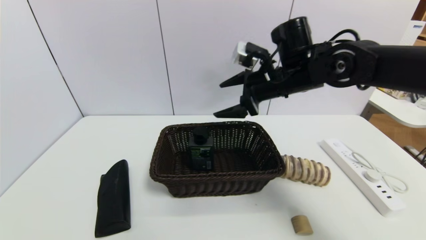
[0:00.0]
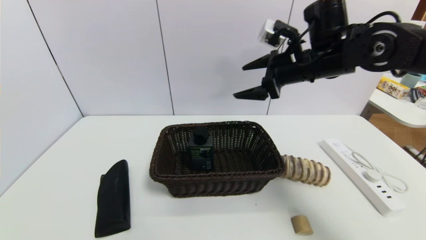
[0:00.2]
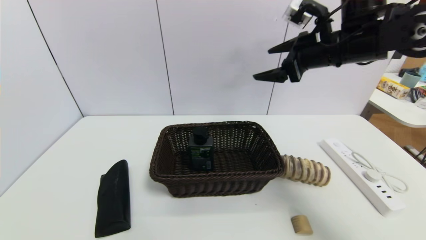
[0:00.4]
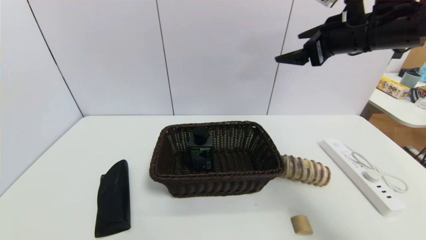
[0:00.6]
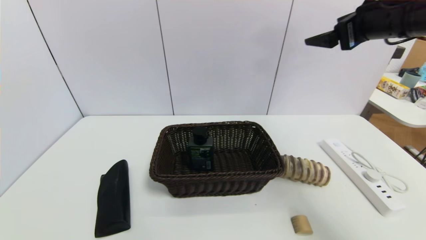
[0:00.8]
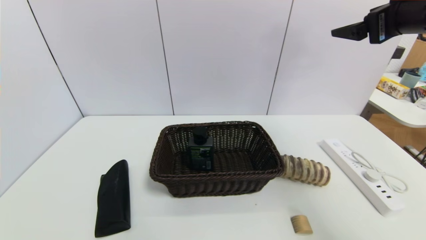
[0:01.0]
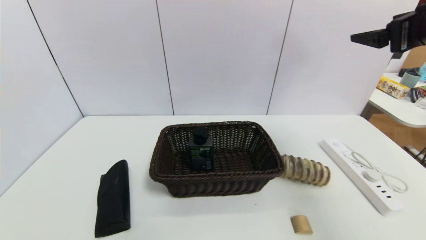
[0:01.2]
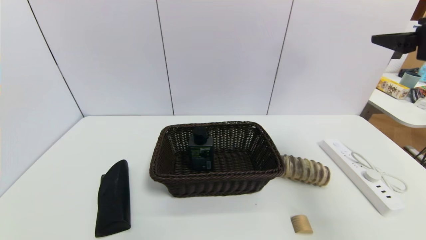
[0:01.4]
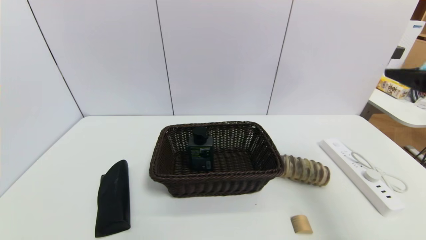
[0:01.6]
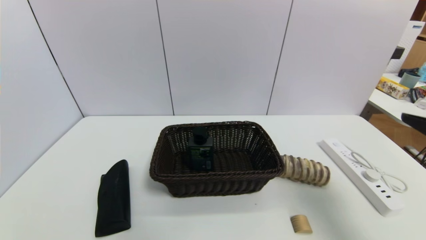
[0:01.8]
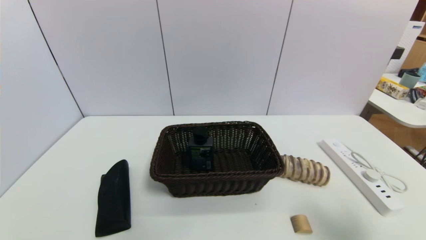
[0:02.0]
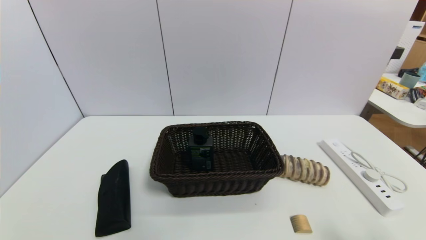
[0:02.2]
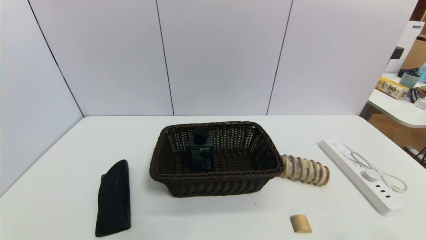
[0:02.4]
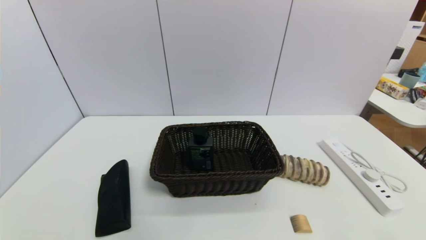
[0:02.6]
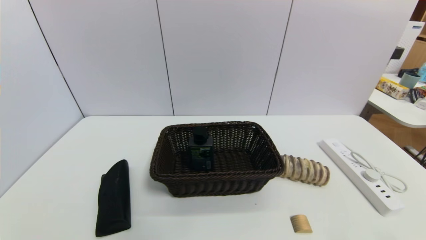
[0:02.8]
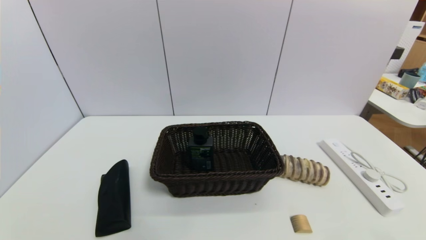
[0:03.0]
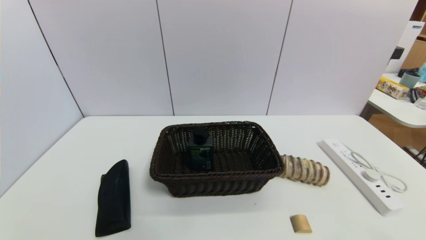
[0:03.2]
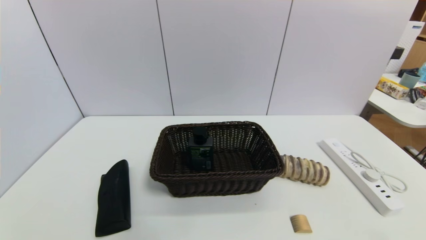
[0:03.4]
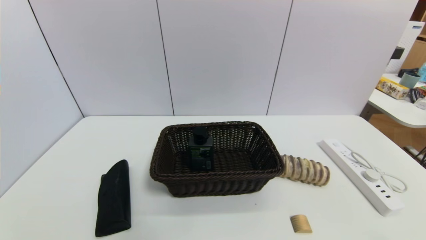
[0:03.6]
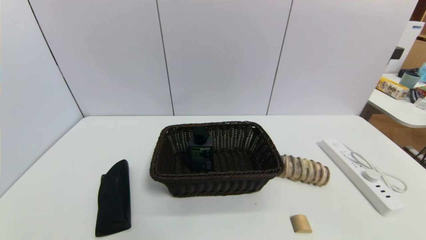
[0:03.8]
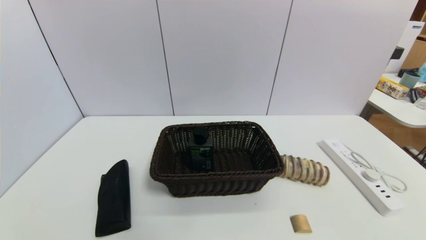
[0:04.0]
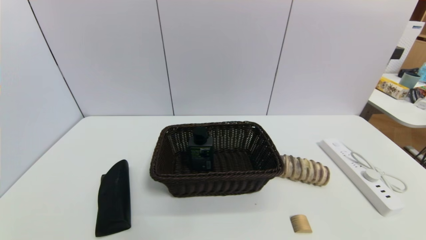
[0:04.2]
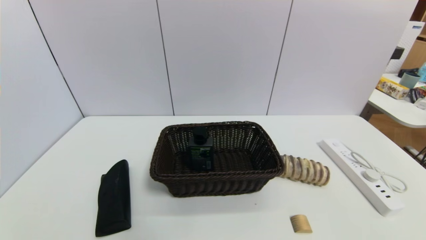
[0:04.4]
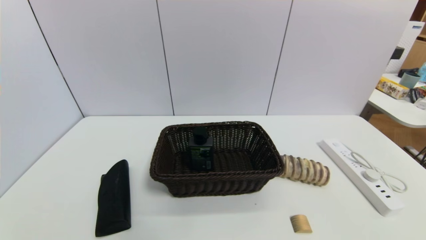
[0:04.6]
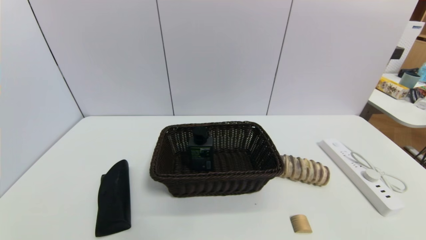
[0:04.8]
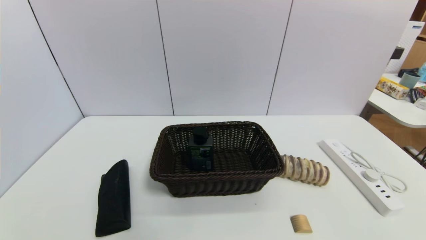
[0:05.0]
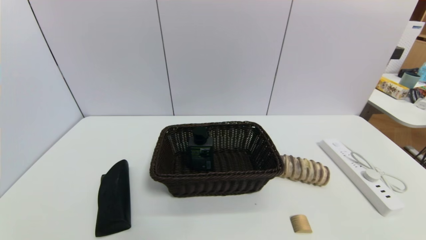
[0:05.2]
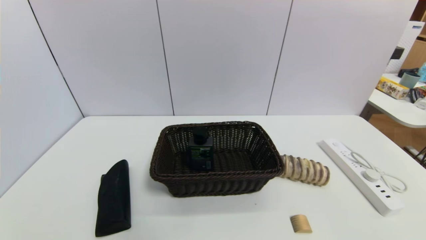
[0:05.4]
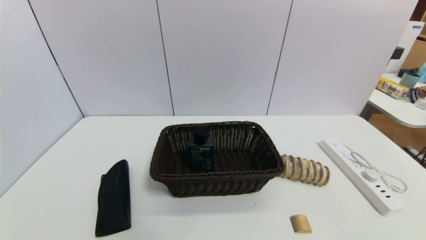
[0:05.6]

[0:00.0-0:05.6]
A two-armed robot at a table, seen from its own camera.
Task of the whole recording: use a gripper to pick the target object and place on the brown basket.
0:00.0 to 0:01.4: The right gripper moves to the right, backward and upward, roughly 25 cm.
0:01.4 to 0:02.8: The right gripper moves downward and backward, some 30 cm.
0:04.2 to 0:05.6: Neither gripper changes place.
